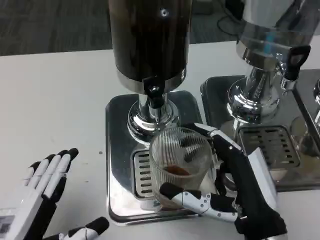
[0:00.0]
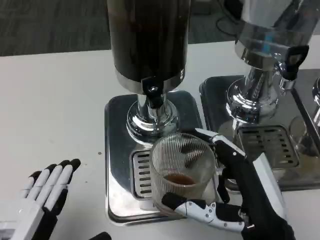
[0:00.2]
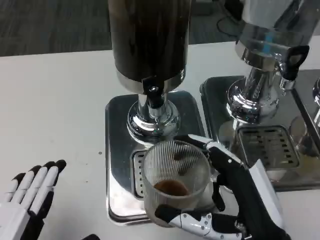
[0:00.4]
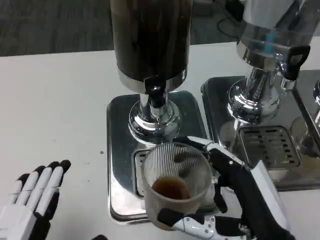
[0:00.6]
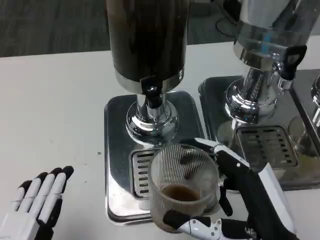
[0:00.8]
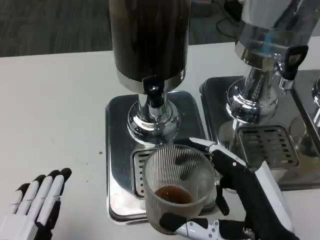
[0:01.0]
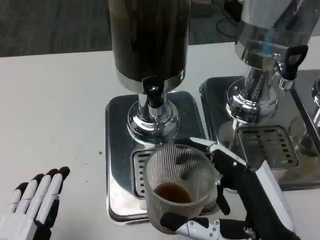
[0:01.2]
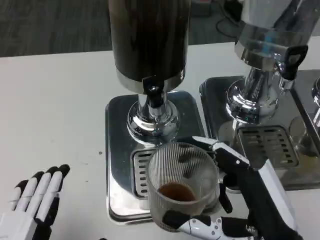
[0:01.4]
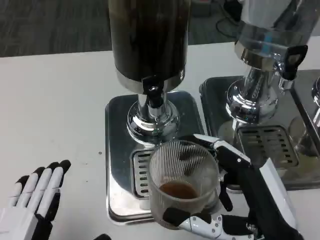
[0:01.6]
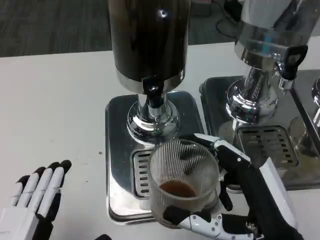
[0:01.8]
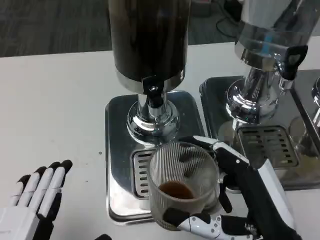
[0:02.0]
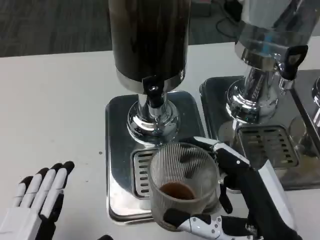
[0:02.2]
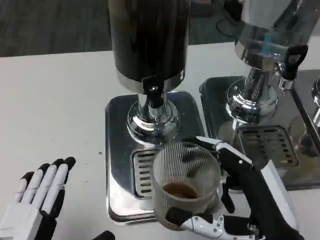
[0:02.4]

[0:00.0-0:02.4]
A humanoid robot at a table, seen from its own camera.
Task of the whole recording: Grasp the cup under the faucet to collect the drink, then remove the cup.
0:00.0 to 0:01.2: The left hand shifts by some 5 cm.
0:01.2 to 0:02.4: Both hands stay about where they are.

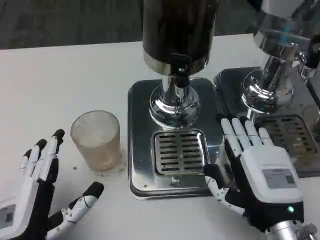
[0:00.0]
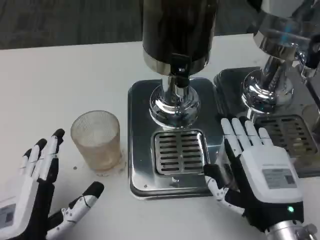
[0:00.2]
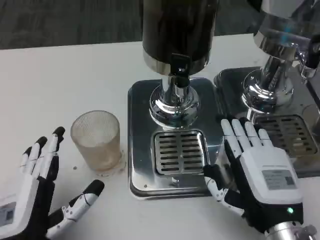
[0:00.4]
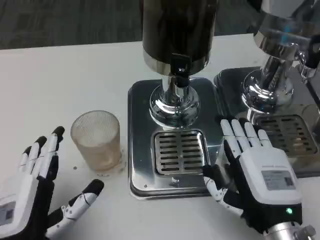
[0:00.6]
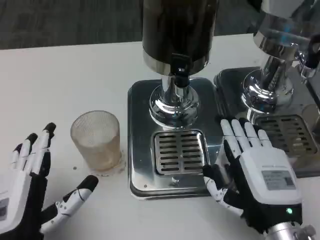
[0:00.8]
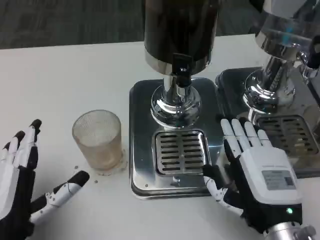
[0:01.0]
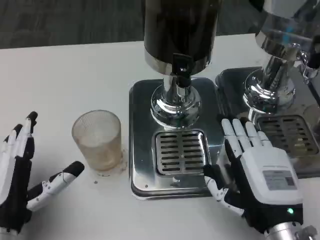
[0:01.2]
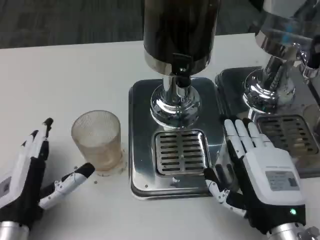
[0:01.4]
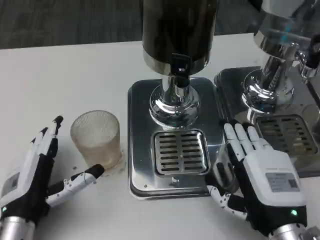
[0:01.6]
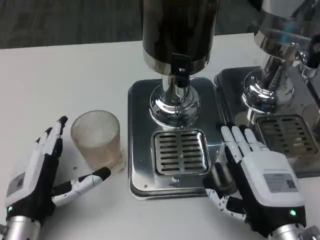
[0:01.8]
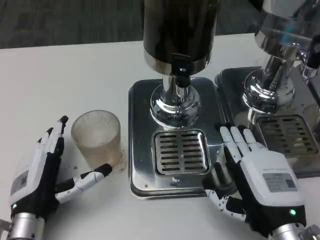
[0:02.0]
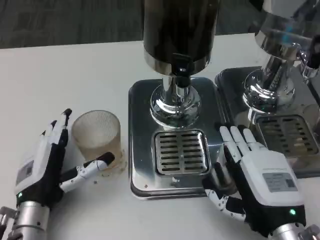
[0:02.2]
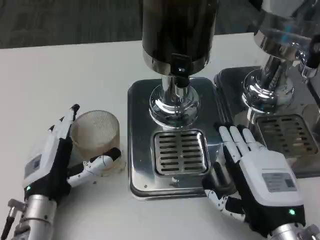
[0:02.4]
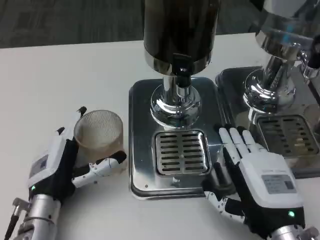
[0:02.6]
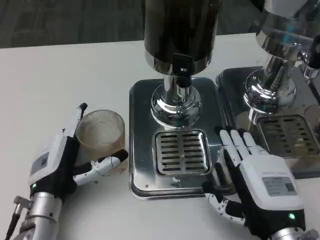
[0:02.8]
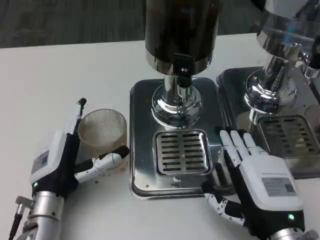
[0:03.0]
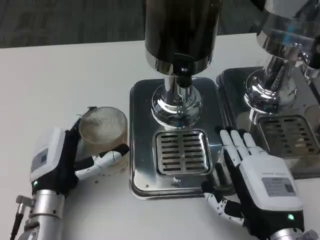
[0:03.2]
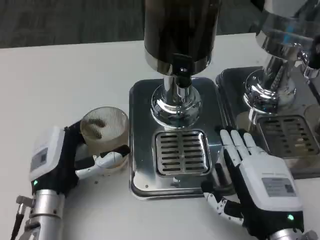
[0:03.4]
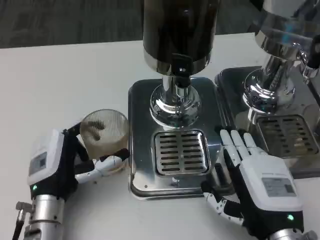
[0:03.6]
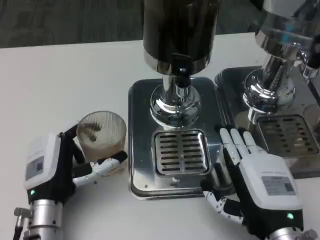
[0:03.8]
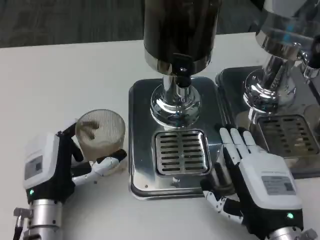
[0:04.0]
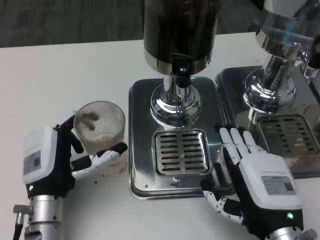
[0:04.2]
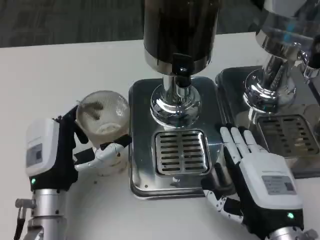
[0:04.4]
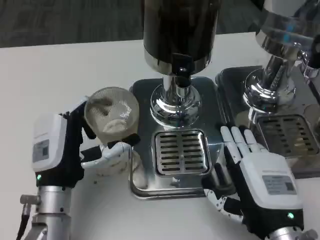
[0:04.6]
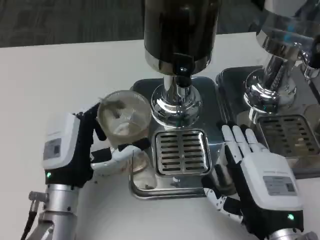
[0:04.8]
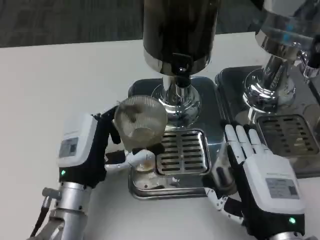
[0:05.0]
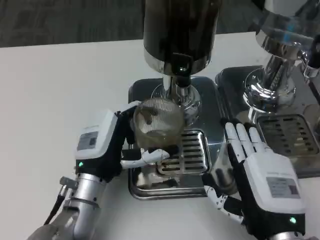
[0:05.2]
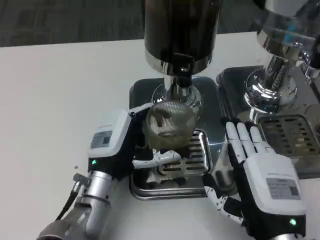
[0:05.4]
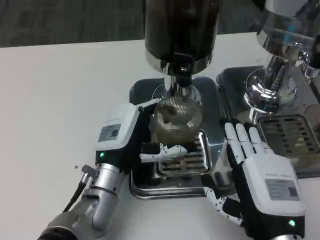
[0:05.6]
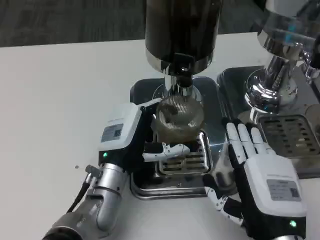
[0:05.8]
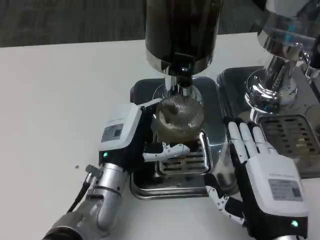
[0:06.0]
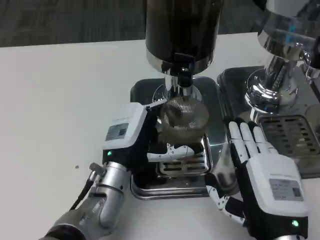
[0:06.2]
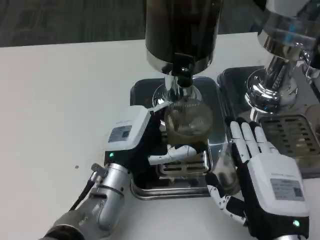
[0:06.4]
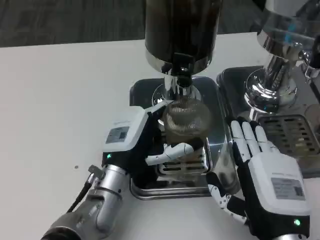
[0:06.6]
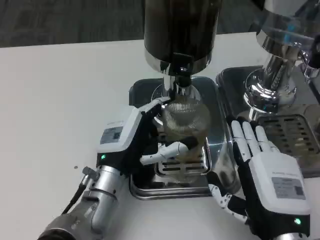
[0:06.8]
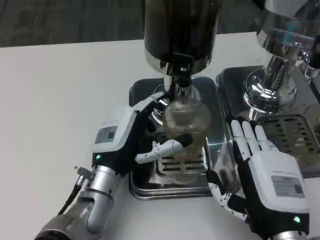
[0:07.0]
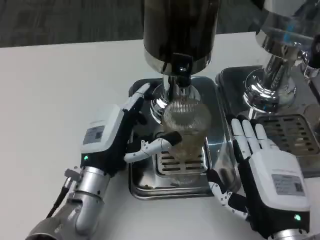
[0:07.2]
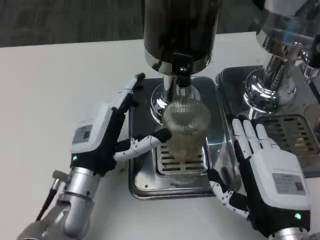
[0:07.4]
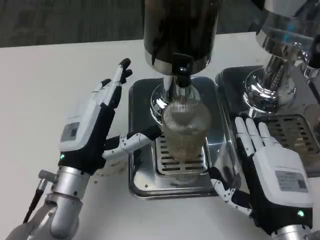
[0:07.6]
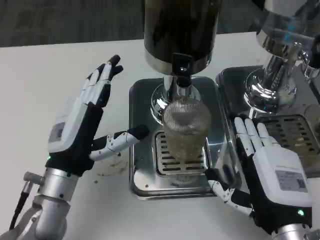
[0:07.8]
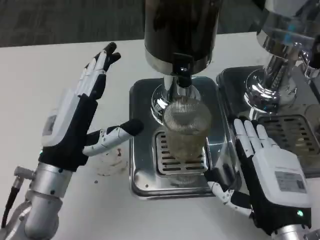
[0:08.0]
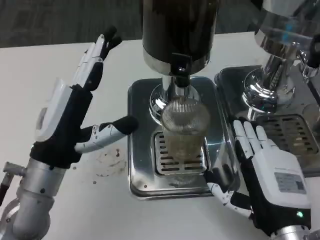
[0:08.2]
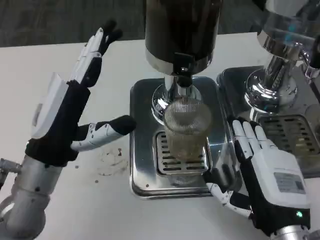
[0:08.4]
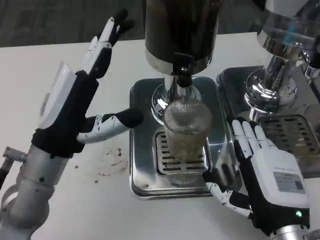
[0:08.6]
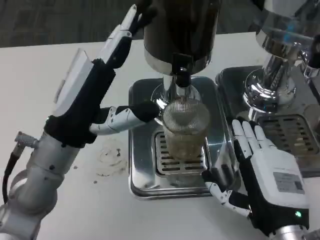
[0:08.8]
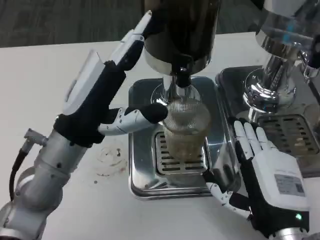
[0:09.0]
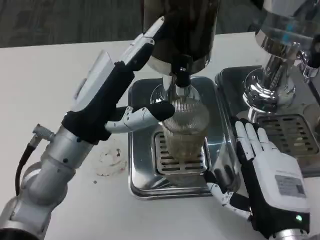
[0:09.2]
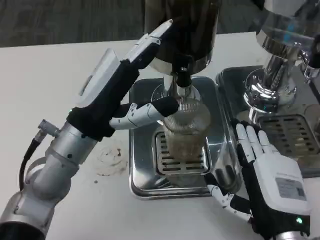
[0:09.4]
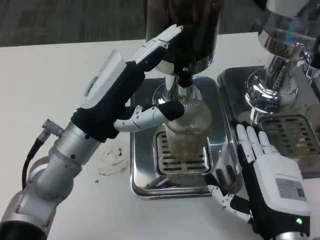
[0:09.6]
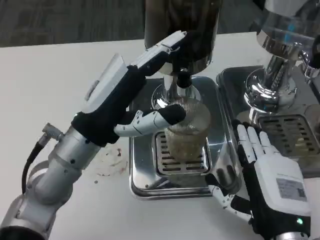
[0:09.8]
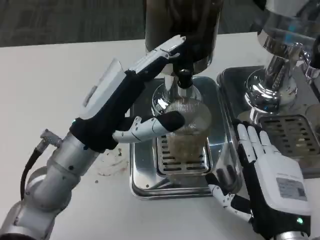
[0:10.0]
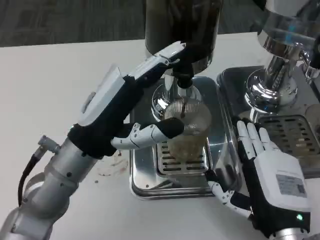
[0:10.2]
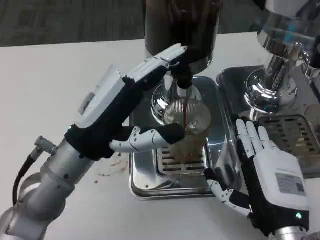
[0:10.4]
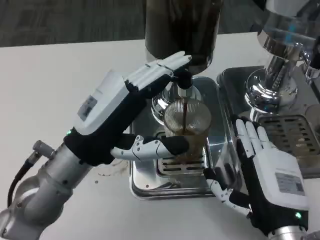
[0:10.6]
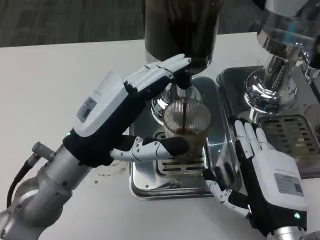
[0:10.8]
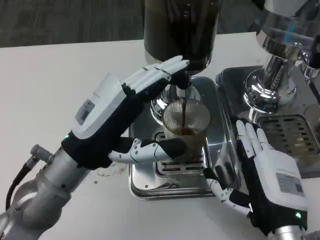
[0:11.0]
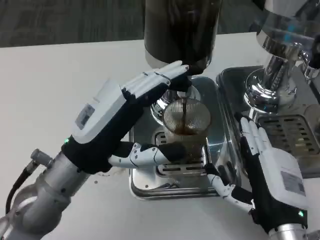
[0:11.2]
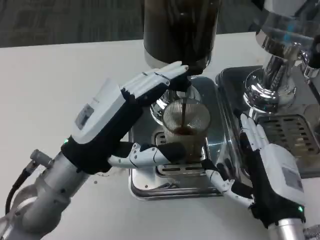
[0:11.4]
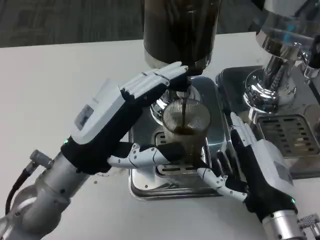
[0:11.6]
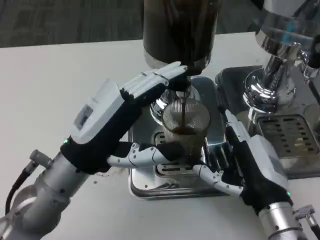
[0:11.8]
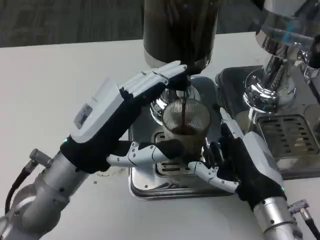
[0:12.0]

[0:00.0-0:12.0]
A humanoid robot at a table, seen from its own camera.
Task of the whole recording: Grasp the cup under the faucet to collect the drink, then remove the cup.
0:00.0 to 0:01.6: The left hand shifts about 5 cm forward.
0:01.6 to 0:03.0: The left hand moves approximately 5 cm.
0:03.0 to 0:04.4: The hands make only small movements.
0:04.4 to 0:06.0: The left hand moves to the right, roughly 5 cm.
0:06.0 to 0:07.6: The left hand shifts some 5 cm to the left.
0:07.6 to 0:09.0: The left hand is displaced upward by roughly 10 cm.

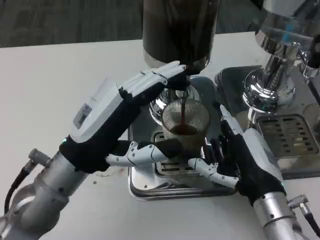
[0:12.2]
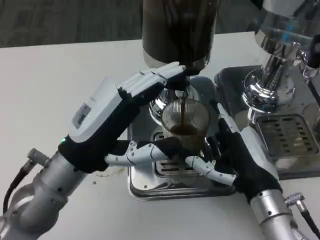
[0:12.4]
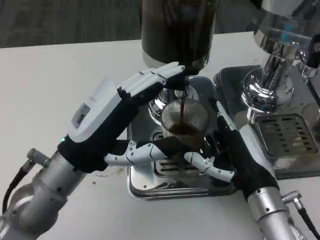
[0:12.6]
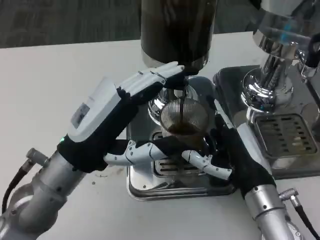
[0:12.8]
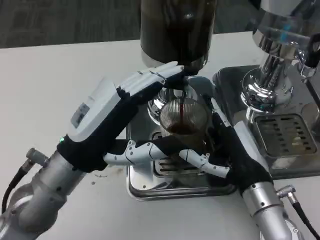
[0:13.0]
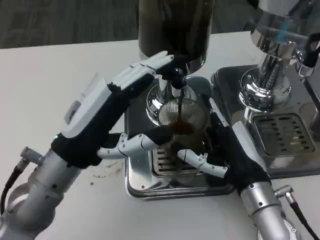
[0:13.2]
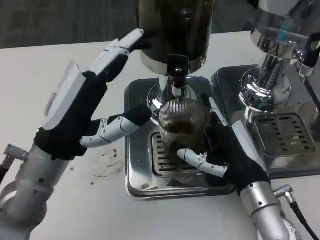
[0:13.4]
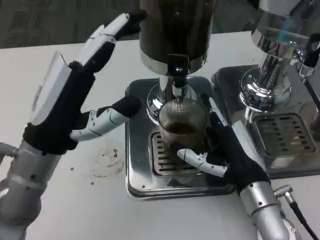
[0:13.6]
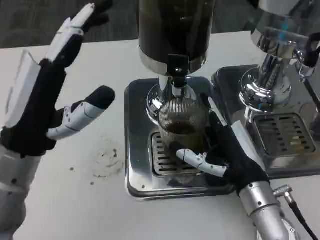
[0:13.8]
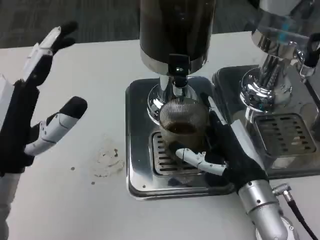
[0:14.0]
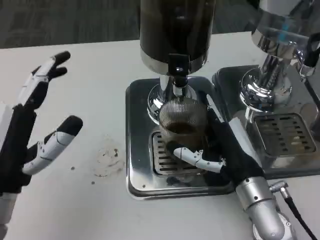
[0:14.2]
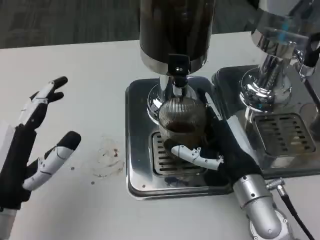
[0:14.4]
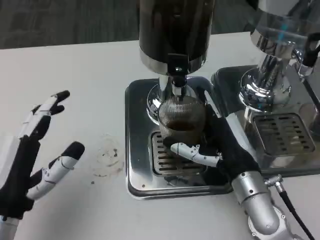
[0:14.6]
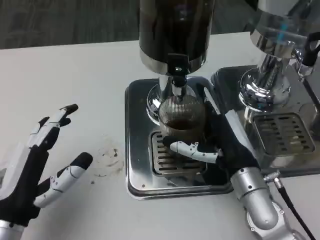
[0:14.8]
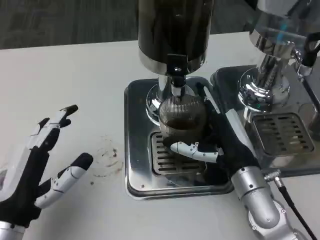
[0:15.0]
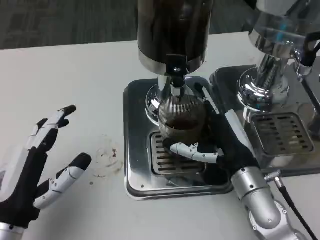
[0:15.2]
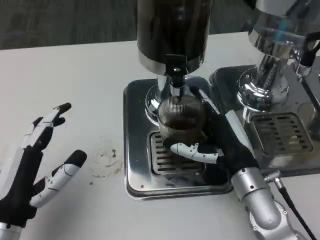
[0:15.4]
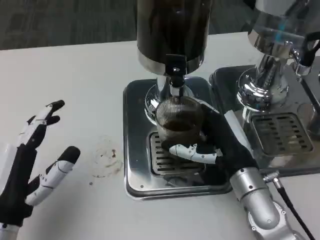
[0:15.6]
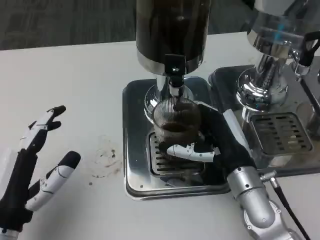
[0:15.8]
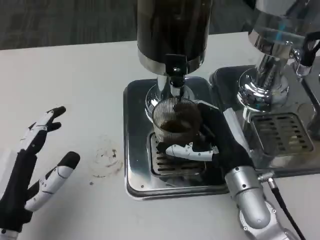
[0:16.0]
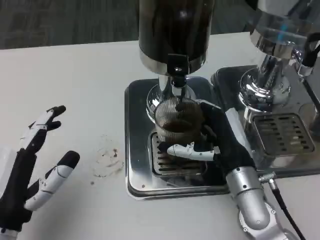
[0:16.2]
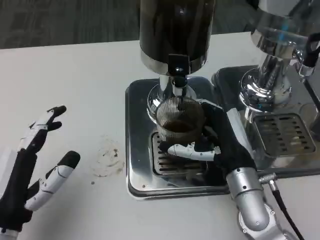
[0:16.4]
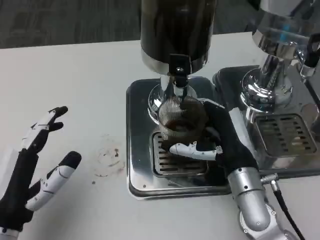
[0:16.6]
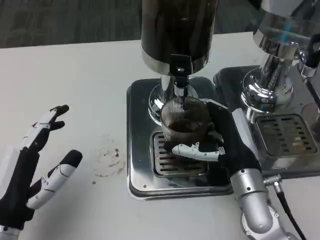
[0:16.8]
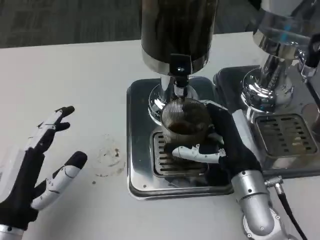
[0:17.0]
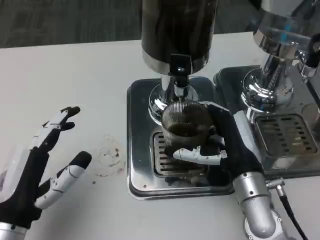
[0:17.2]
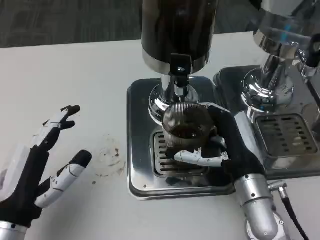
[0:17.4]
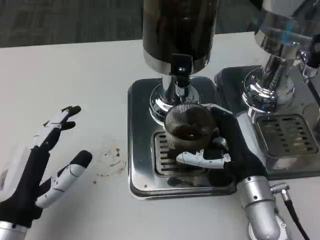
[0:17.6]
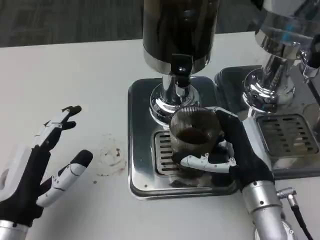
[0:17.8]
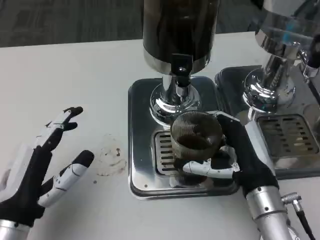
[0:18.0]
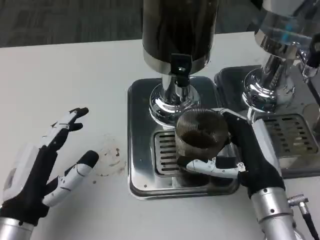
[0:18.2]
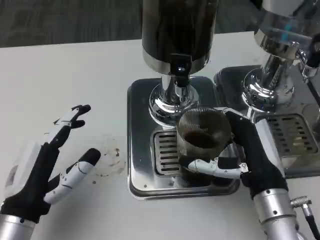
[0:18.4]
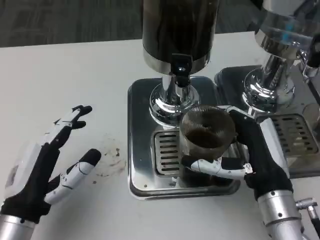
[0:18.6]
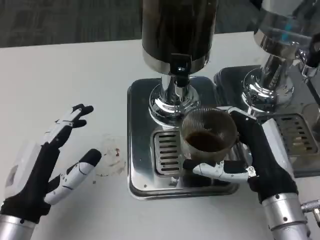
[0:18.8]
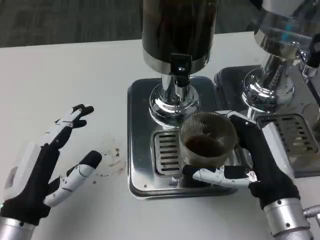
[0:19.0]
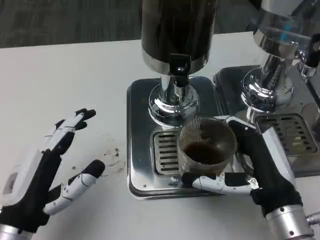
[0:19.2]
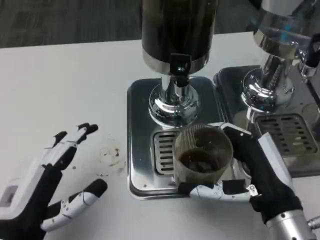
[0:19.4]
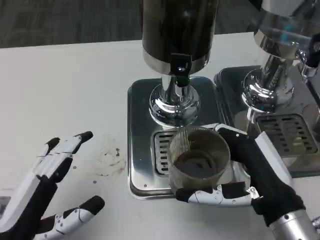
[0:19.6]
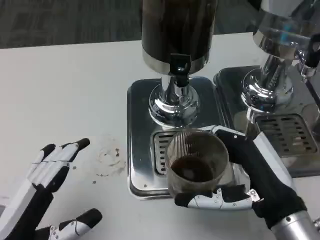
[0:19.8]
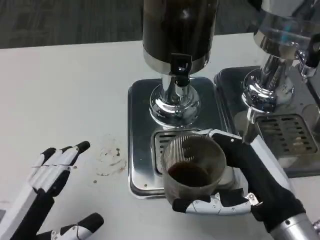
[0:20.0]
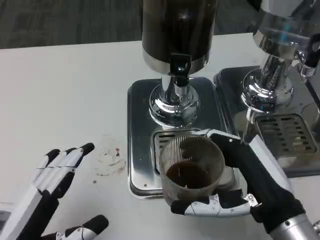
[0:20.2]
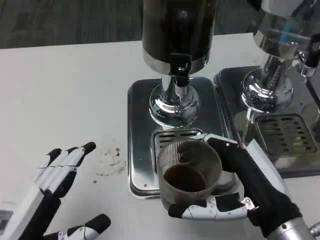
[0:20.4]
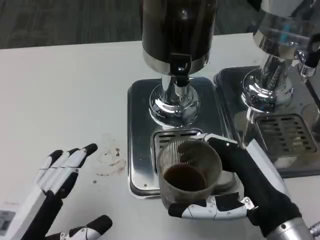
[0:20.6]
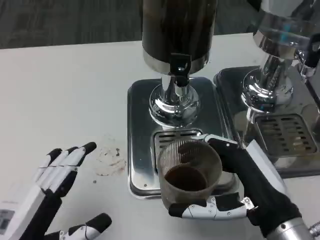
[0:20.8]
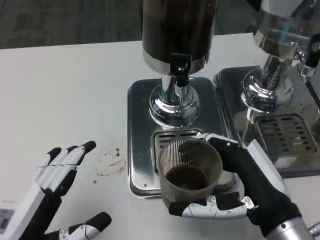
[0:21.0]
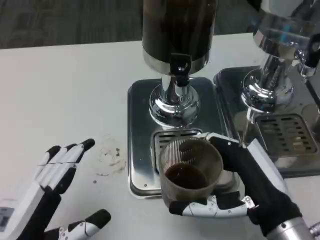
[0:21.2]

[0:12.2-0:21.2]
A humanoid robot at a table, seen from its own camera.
Task of the whole recording: Grasp the cup under the faucet to collect the drink, then remove the cup.
0:13.8 to 0:15.2: The left hand heads downward and backward, covering about 10 cm.
0:18.2 to 0:19.8: Both hands travel together backward, some 5 cm.
0:19.8 to 0:21.2: Both hands stay about where they are.
